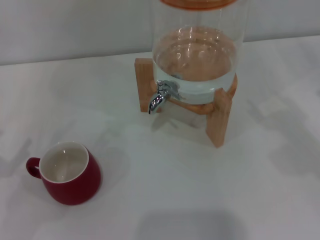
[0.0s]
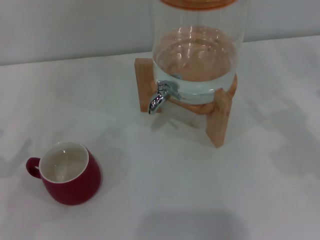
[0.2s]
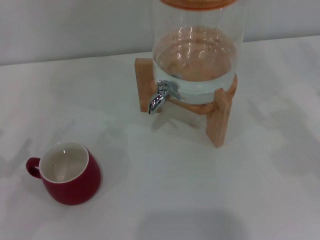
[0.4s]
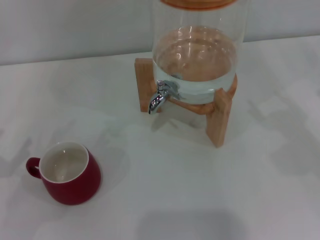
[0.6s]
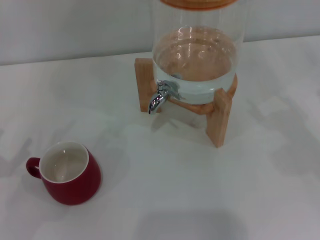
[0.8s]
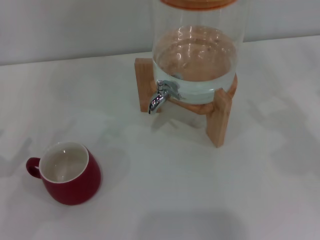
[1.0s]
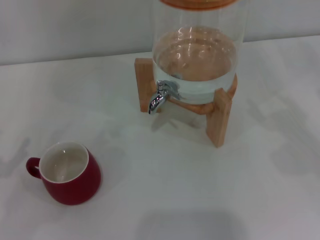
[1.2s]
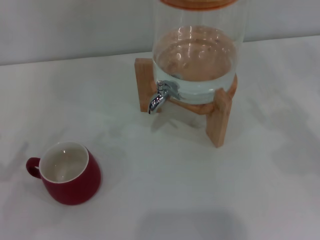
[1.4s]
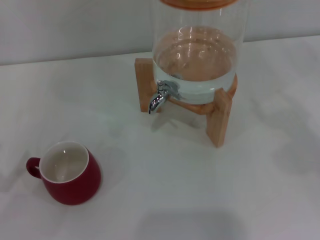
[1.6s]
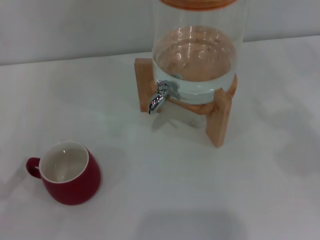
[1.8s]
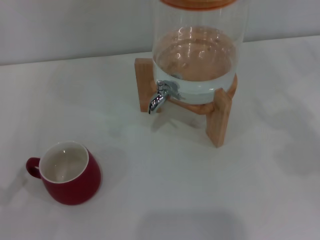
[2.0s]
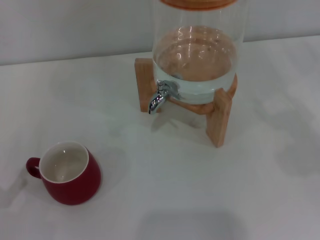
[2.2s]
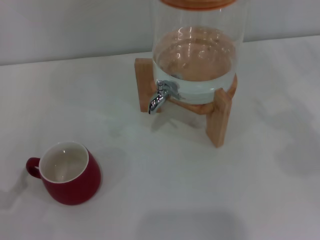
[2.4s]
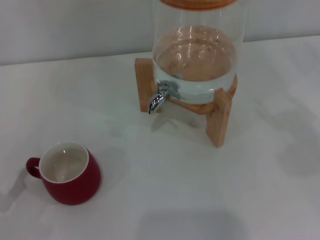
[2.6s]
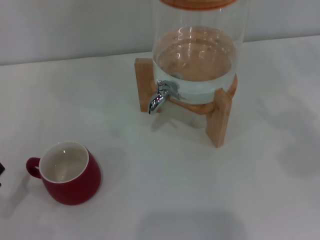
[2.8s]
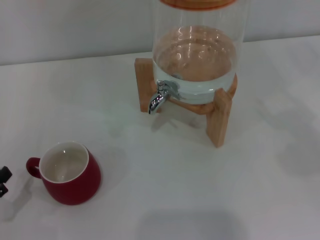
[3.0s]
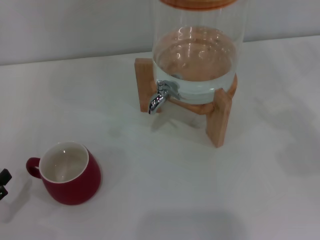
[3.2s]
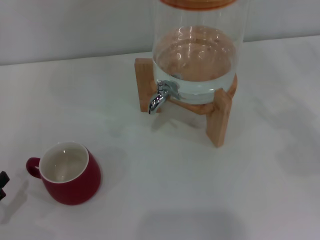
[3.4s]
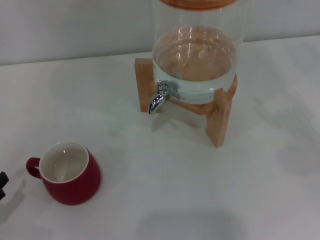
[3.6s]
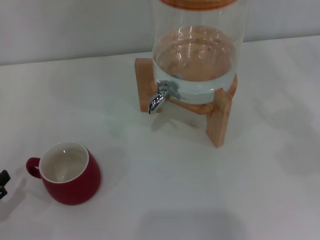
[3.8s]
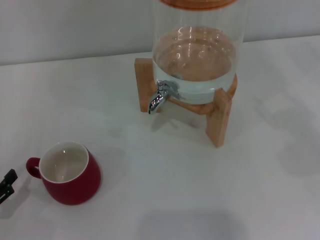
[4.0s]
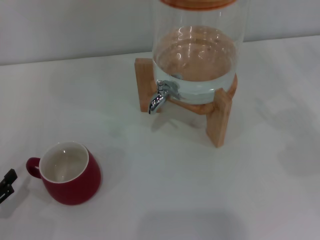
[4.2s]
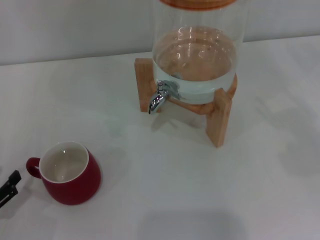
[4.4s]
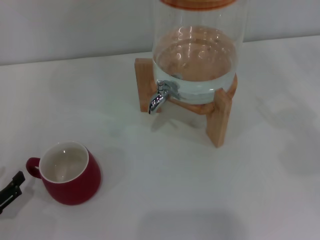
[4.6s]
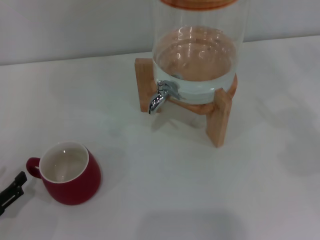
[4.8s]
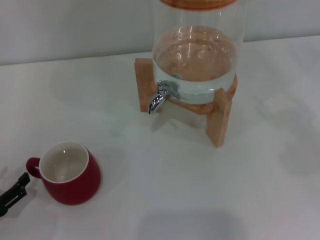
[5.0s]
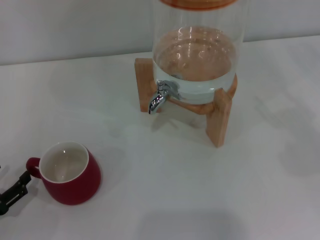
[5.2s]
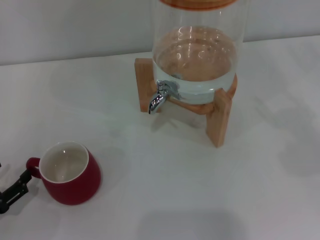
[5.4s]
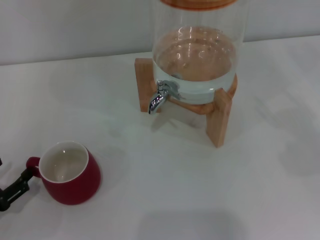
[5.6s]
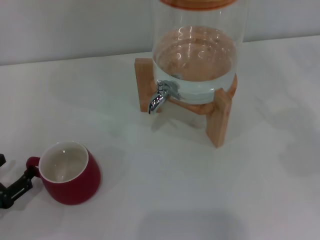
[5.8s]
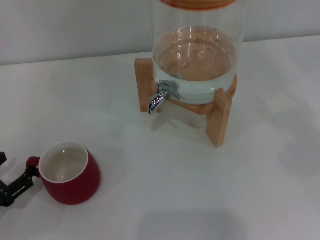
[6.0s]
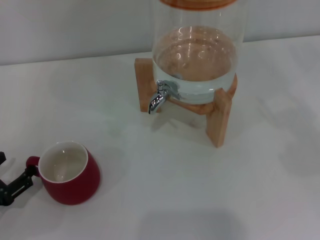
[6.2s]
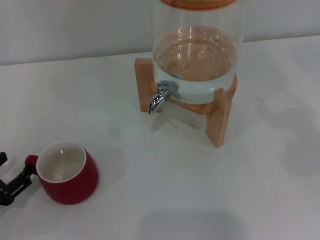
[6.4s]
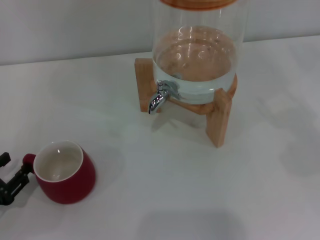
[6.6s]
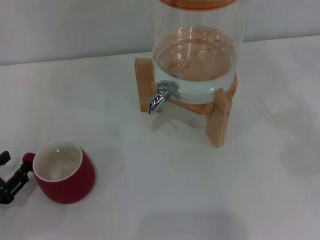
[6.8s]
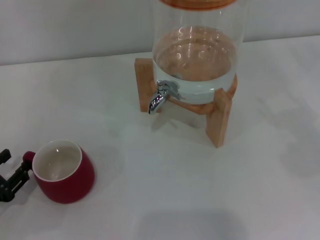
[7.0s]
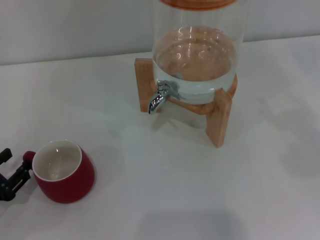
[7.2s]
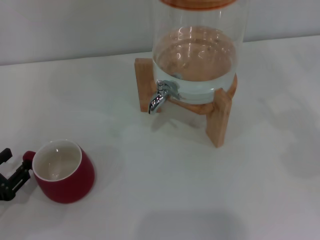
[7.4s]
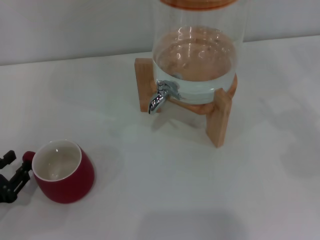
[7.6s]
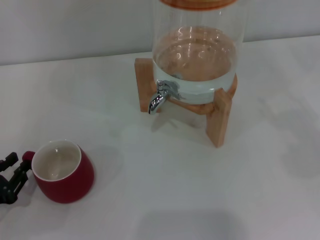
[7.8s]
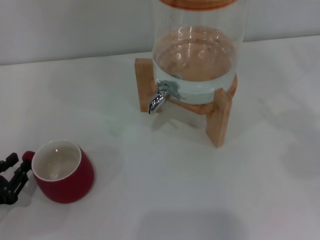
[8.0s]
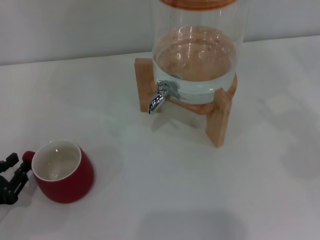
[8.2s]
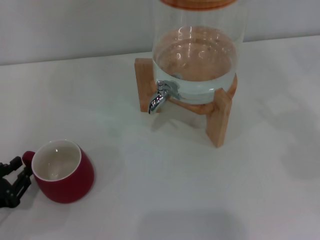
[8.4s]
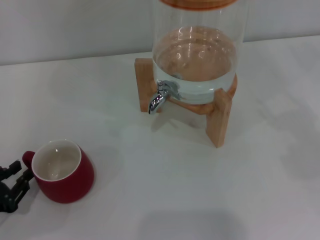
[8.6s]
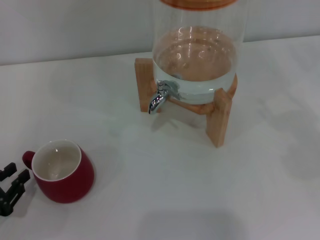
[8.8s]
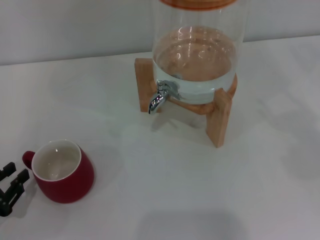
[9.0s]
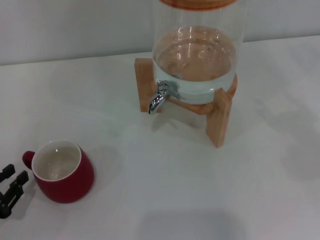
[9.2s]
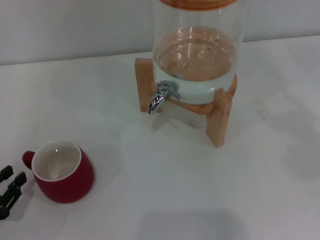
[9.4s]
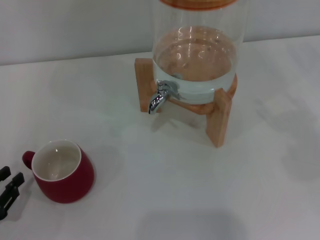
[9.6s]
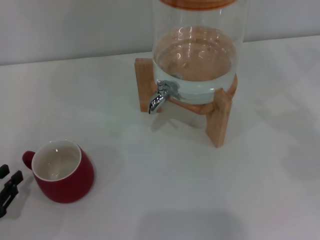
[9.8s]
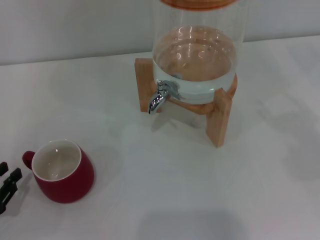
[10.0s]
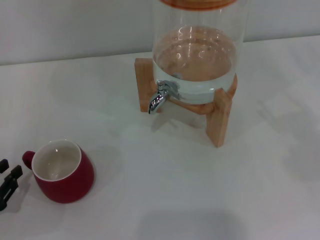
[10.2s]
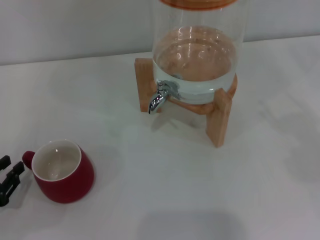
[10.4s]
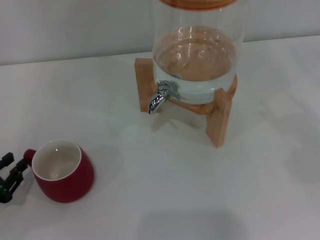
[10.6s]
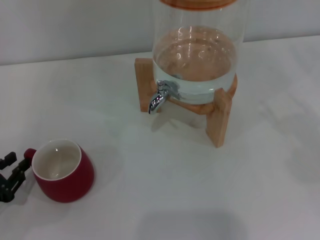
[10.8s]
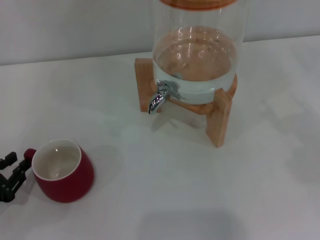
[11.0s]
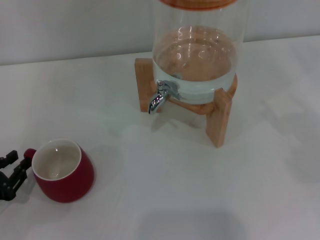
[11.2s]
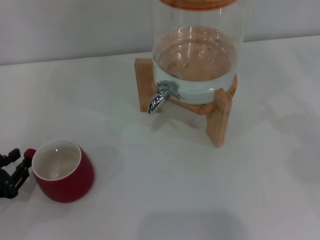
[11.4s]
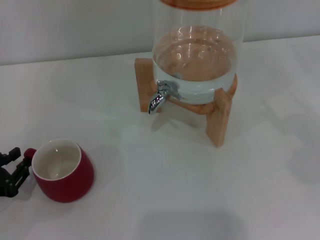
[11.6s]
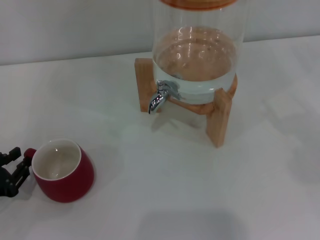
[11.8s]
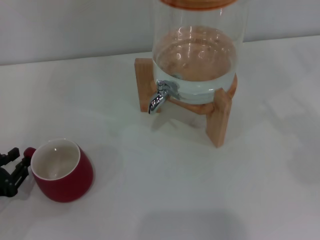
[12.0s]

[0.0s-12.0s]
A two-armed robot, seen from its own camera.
Task of the whole recording: the left gripper pick up the red cup and place it horizontally under the faucet, the right gripper turn on the faucet to fill the cup, and then turn off the faucet.
4.4s to 6.0s: The grippers stay close to where they were, moving slightly.
6.0s to 7.6s: The two grippers keep their place.
7.6s to 9.0s: The grippers move only a little.
9.0s to 10.4s: Neither gripper changes place.
10.4s to 12.0s: There are only small adjustments of the grippers.

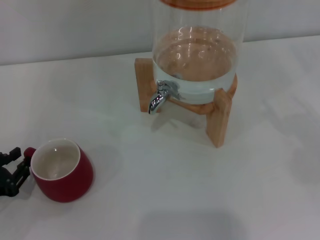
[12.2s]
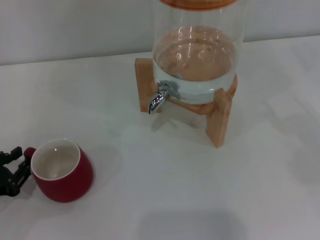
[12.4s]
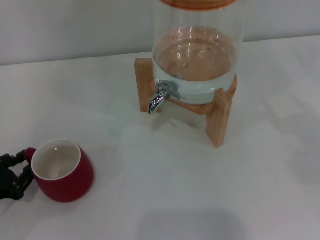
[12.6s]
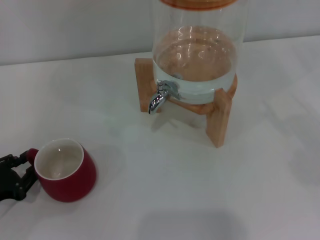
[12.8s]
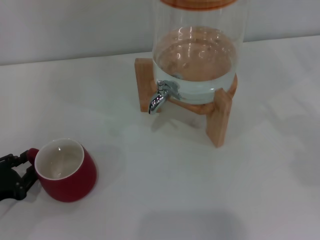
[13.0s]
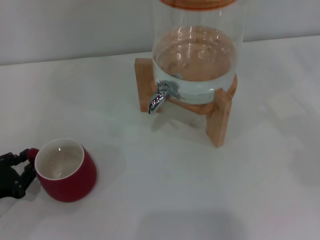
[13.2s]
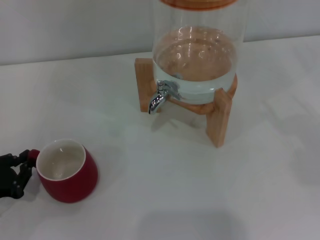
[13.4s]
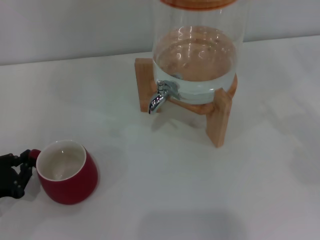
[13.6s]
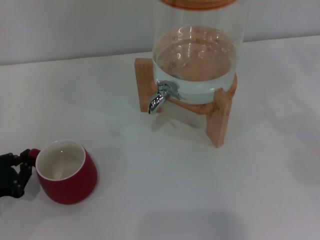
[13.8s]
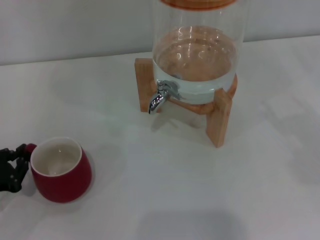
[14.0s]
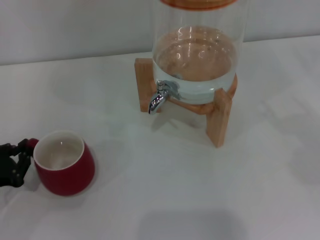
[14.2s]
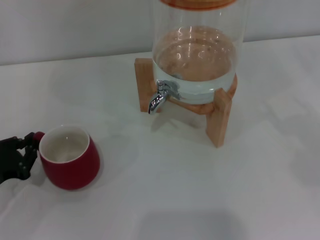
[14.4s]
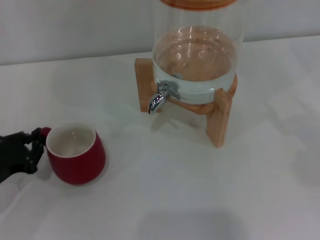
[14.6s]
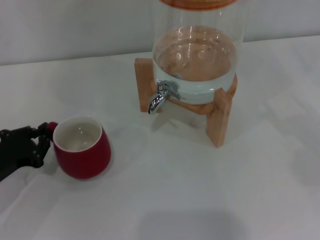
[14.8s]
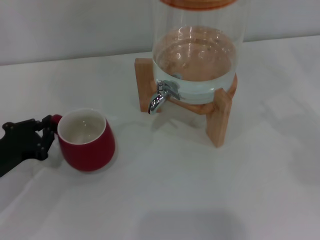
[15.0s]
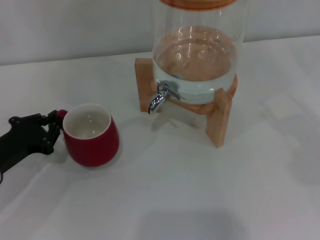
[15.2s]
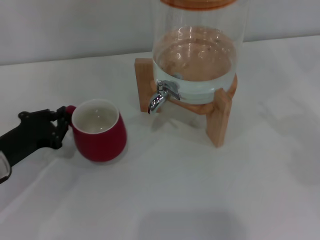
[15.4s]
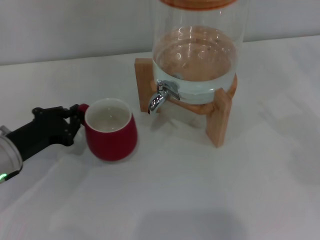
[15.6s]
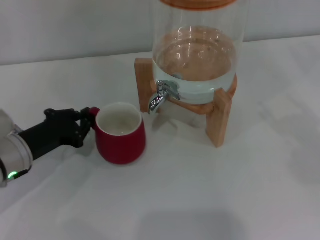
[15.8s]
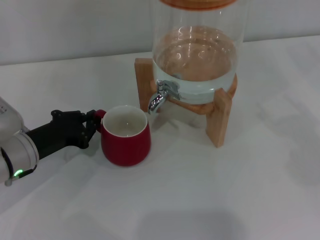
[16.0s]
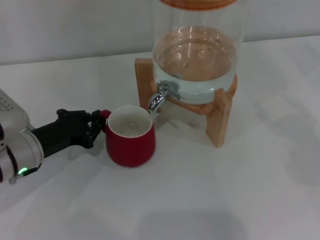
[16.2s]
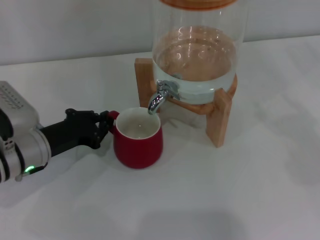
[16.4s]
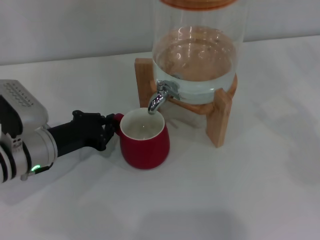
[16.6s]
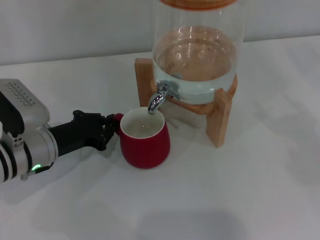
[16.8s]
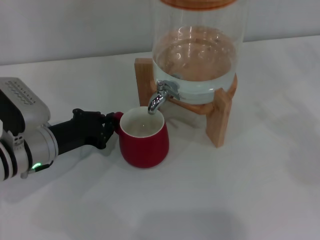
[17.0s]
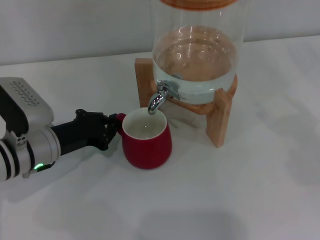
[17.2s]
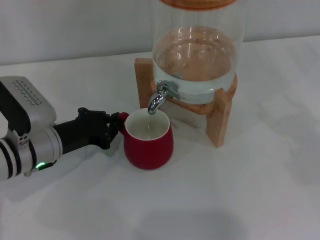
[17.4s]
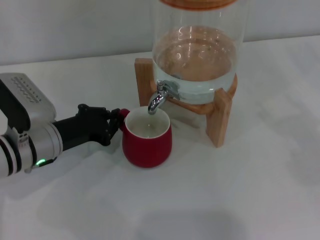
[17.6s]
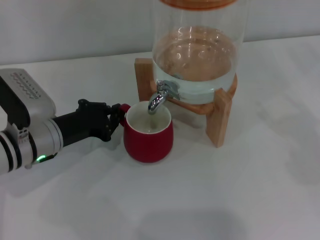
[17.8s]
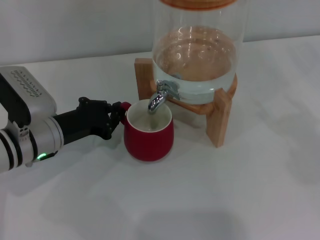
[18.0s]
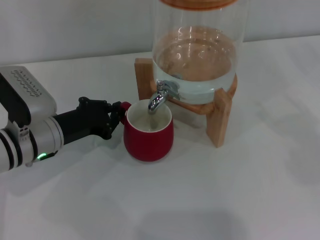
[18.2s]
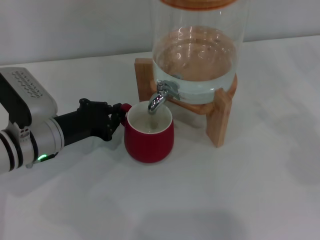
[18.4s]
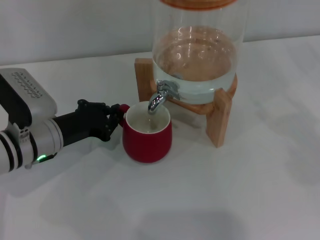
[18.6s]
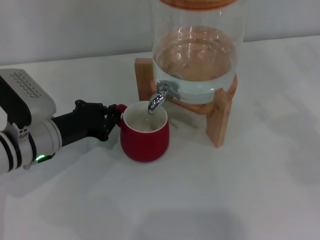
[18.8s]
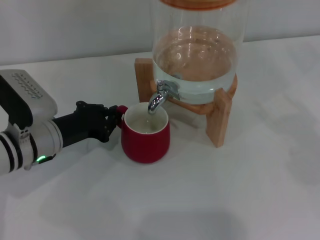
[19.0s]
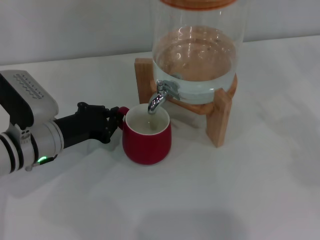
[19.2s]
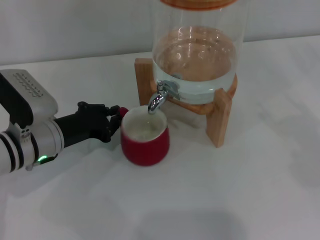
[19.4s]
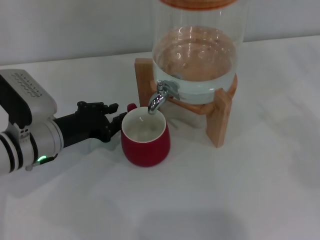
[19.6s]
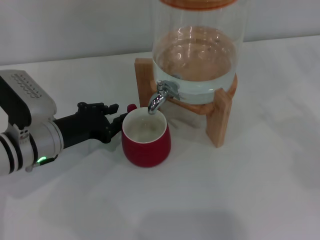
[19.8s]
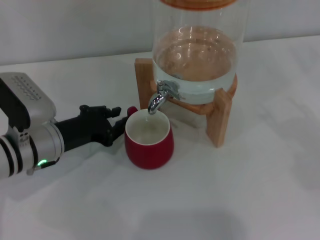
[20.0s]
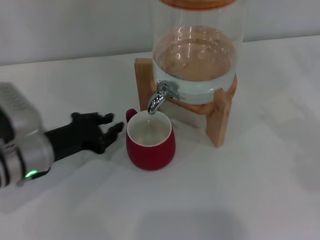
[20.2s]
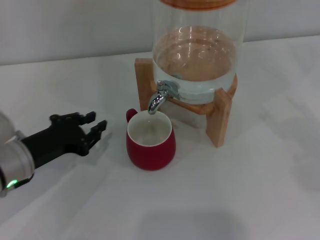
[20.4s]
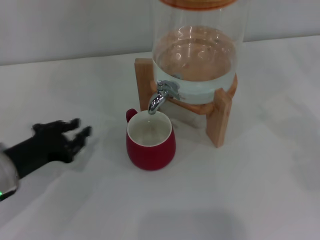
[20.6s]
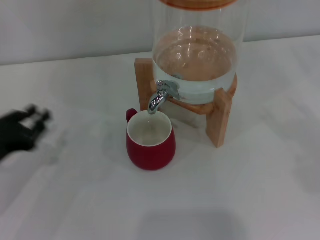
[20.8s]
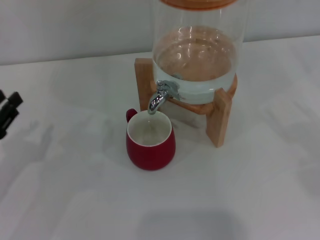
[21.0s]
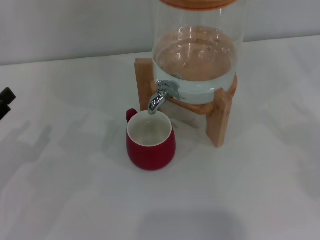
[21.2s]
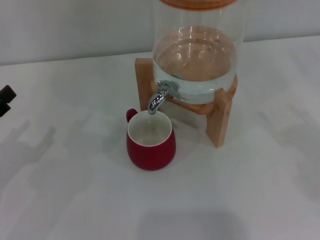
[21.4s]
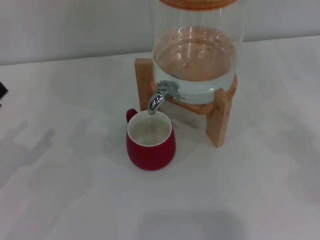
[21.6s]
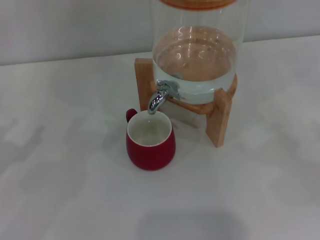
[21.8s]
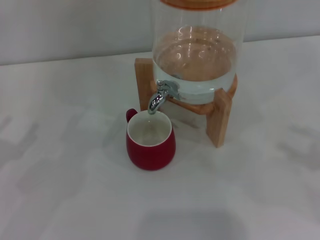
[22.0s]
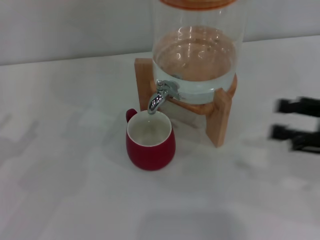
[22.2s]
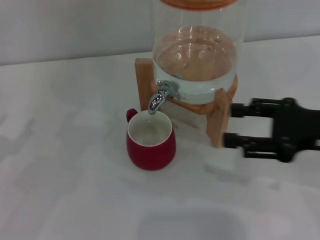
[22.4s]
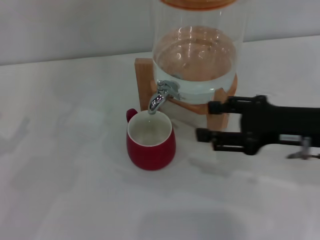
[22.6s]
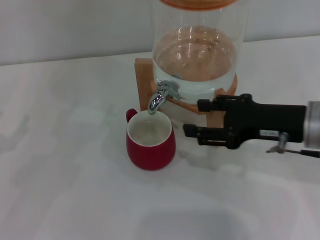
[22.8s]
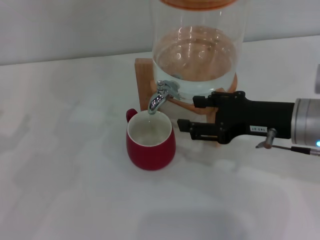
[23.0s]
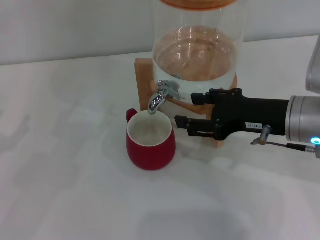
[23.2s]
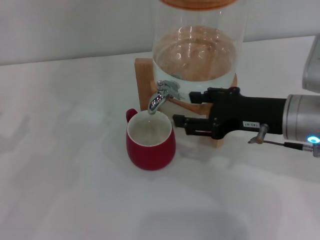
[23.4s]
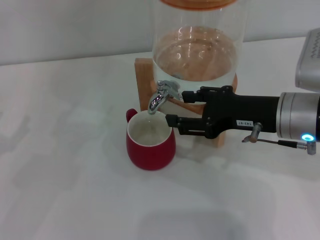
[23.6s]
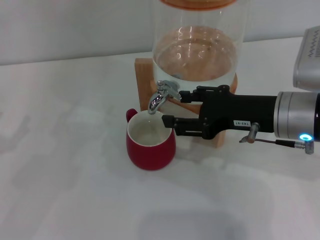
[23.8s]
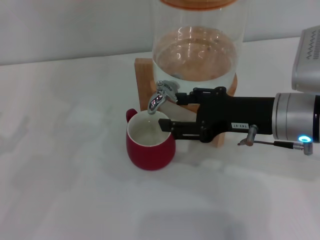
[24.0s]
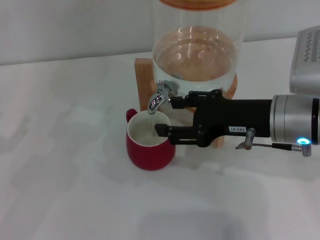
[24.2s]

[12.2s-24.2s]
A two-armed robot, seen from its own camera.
Task of the whole recording: the left gripper pick up the red cup and place it horizontally under the faucet, the right gripper turn on the faucet to fill the cup, and then turn off the faucet.
Step, 12.2s to 19.8s: Move the cup beneath the water dispenser nozzle with the left gripper.
12.2s to 13.8s: The grippers stay close to where they were, moving slightly.
13.8s to 15.2s: The left gripper goes approximately 5 cm forward.
15.2s to 16.6s: The left gripper heads to the right, covering roughly 10 cm.
16.6s to 18.2s: There are only small adjustments of the grippers.
18.2s to 19.8s: The two grippers keep their place.
19.8s to 21.2s: The left gripper travels to the left and backward by about 15 cm.
21.2s to 22.6s: The left gripper opens its fingers. Meanwhile the right gripper moves to the left, about 20 cm.
22.6s to 24.2s: The right gripper goes some 5 cm to the left.
